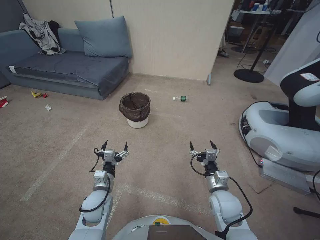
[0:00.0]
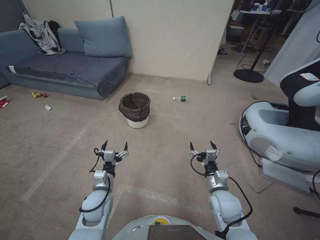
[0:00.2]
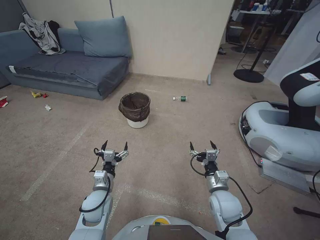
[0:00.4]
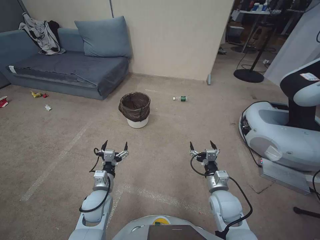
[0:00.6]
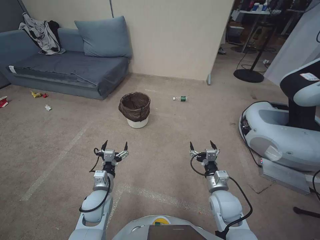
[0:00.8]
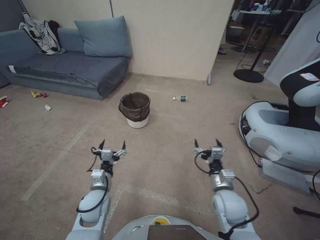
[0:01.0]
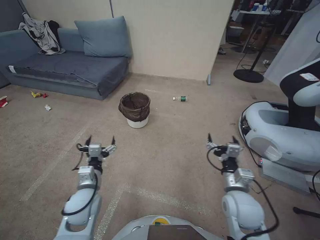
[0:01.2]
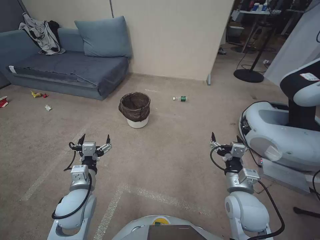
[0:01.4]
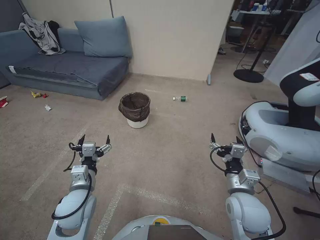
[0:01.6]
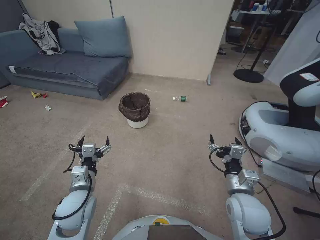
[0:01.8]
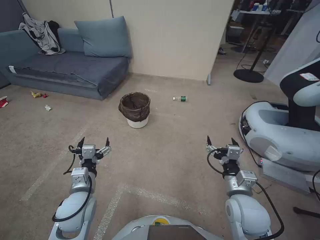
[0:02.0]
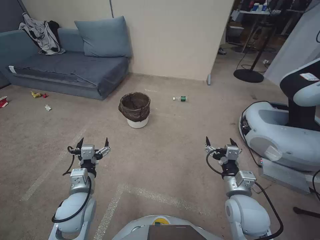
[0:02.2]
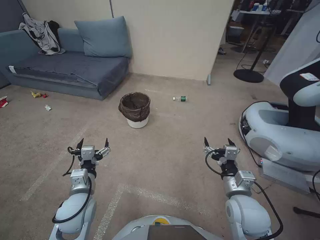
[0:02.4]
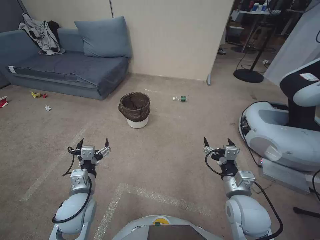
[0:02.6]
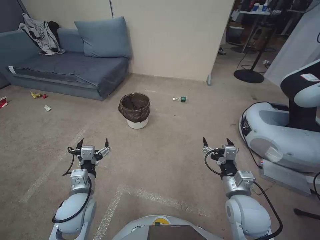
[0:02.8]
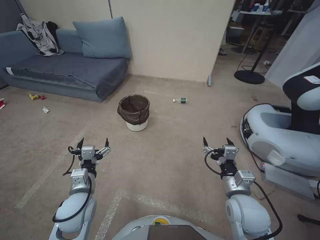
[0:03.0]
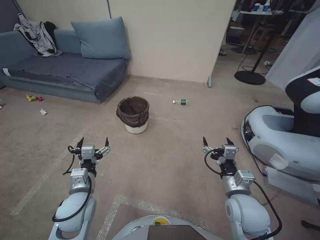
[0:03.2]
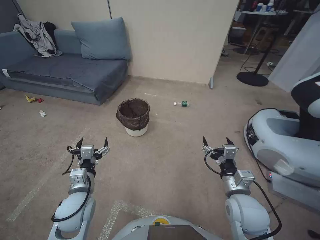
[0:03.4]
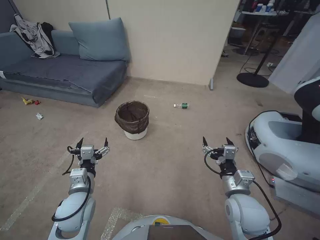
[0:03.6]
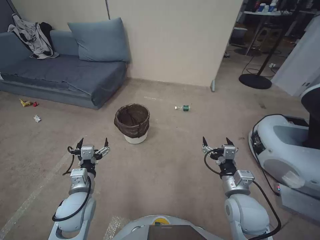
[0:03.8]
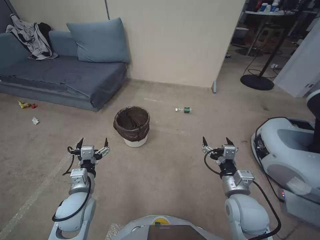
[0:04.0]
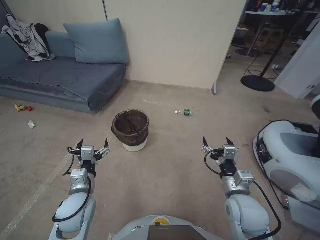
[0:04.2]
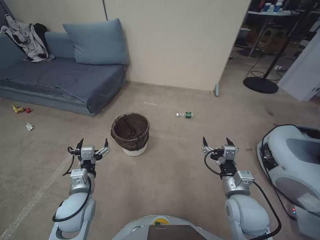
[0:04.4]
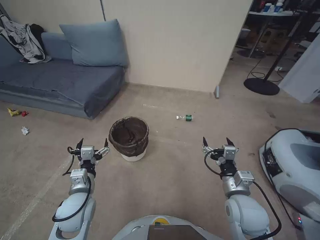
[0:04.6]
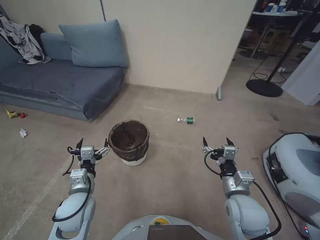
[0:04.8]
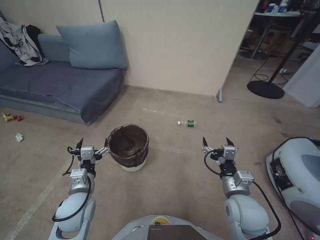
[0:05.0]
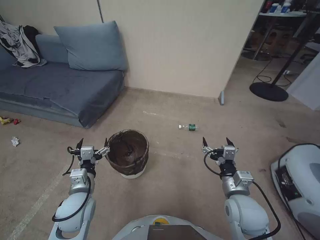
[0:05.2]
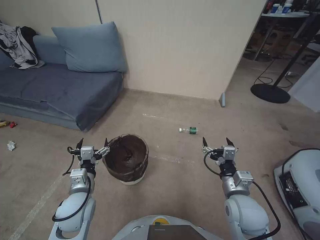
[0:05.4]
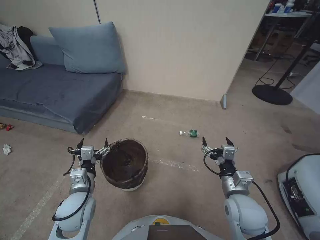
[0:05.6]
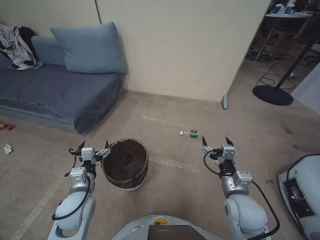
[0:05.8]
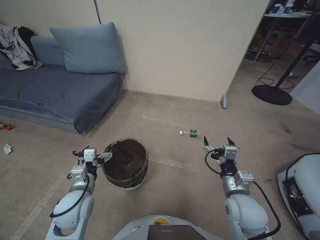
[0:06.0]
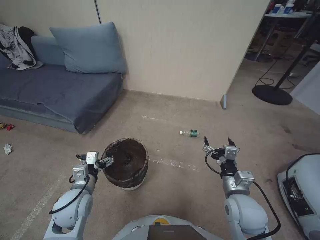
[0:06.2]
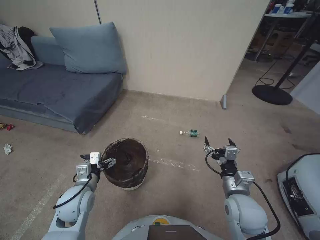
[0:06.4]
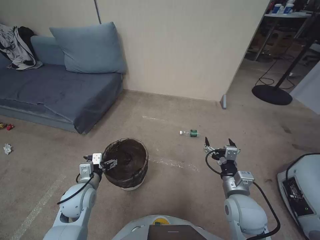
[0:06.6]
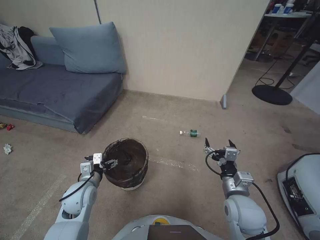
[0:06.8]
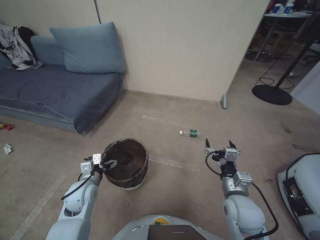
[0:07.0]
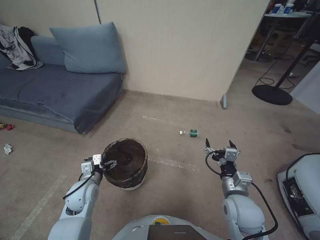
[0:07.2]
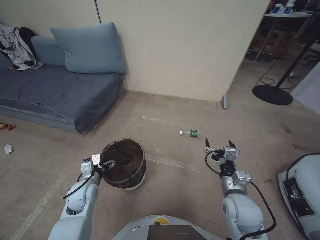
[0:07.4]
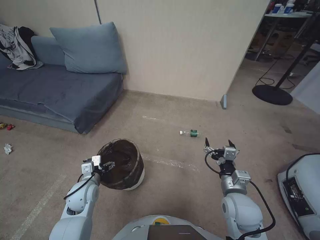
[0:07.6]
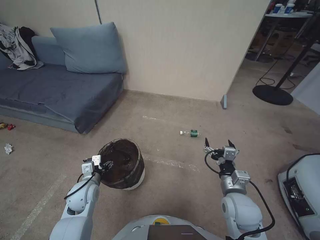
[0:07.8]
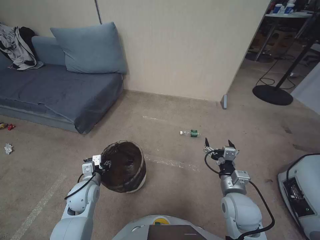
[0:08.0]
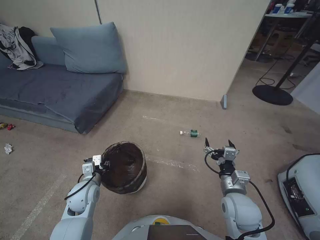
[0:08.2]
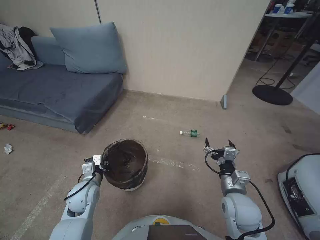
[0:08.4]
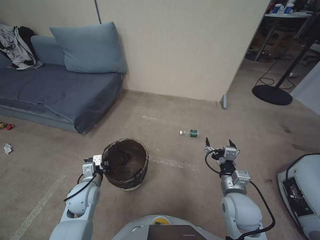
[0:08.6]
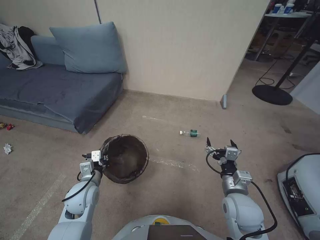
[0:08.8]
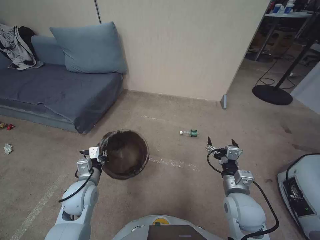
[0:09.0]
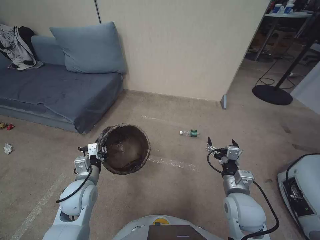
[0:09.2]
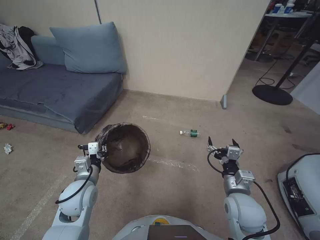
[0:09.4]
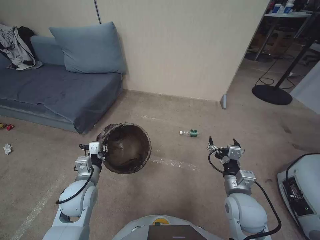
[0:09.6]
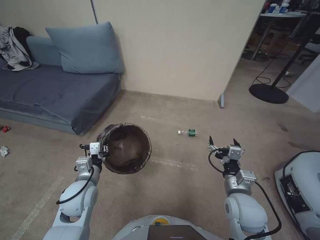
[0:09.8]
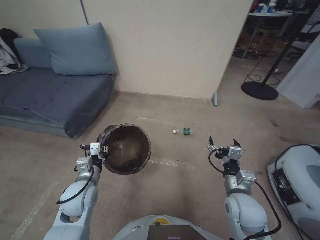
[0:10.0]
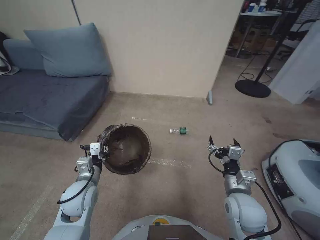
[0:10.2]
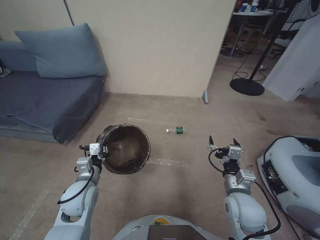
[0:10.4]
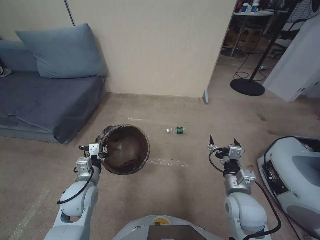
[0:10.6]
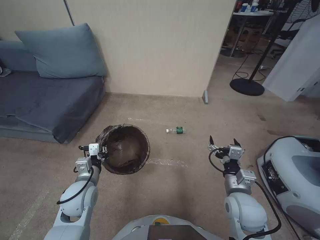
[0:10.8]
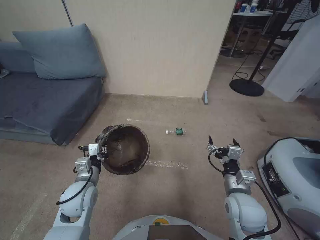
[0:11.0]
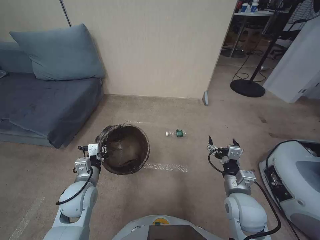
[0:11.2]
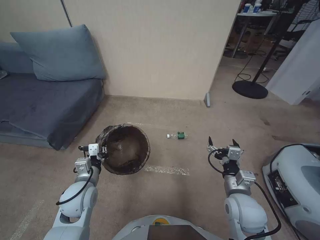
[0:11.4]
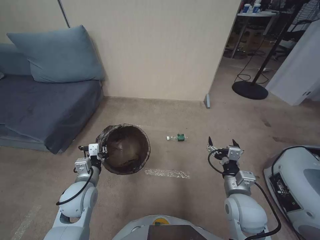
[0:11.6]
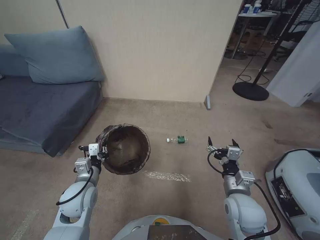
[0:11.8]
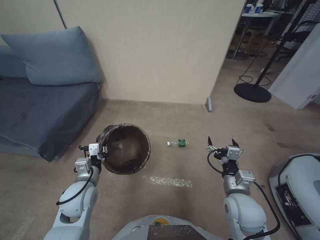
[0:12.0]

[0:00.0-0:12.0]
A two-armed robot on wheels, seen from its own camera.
Task of the whole recording: Pick up the trash bin, then pick up the garbage from the floor and place it into the trash bin.
0:01.6 to 0:03.0: The grippers move only a little.
0:06.0 to 0:07.6: The left gripper goes some 5 cm downward.
0:07.6 to 0:09.0: The left gripper shifts by some 5 cm, and closes up.
0:10.4 to 0:12.0: Both grippers stay about where they are.

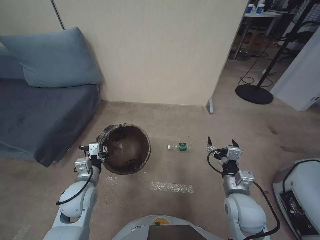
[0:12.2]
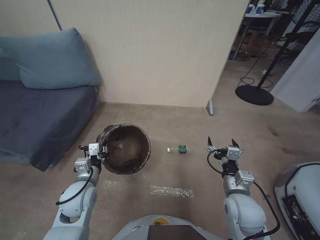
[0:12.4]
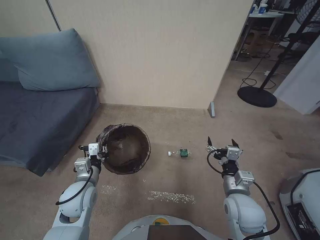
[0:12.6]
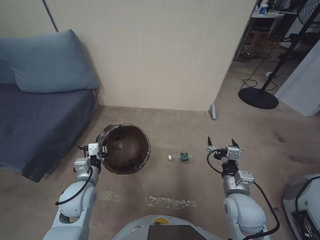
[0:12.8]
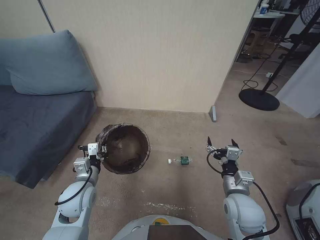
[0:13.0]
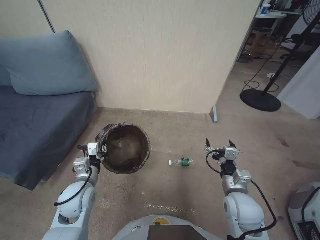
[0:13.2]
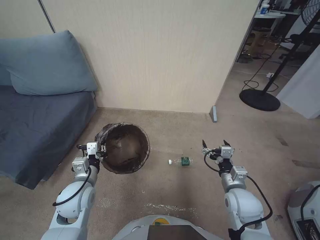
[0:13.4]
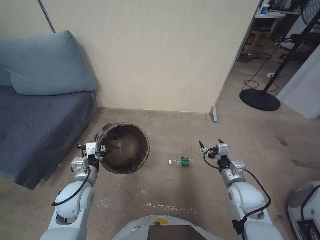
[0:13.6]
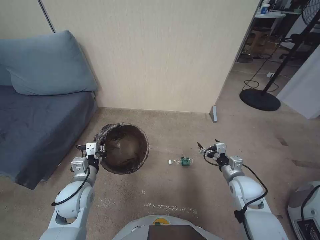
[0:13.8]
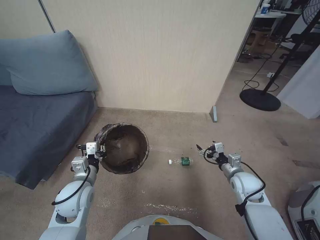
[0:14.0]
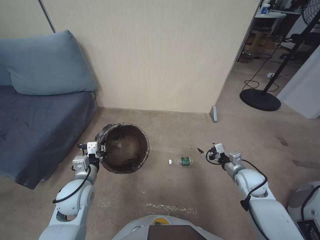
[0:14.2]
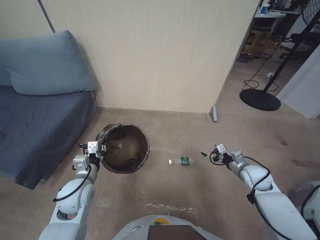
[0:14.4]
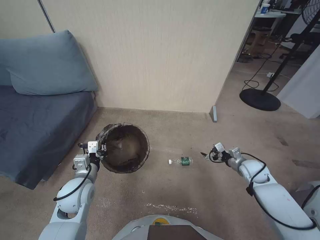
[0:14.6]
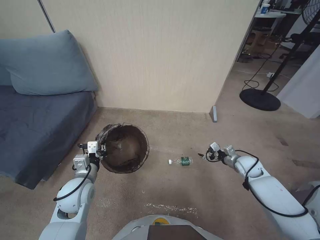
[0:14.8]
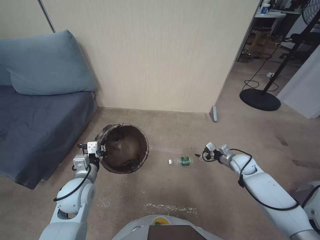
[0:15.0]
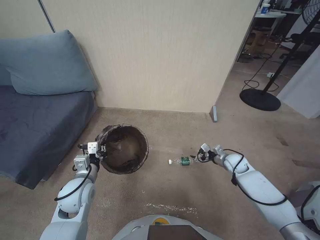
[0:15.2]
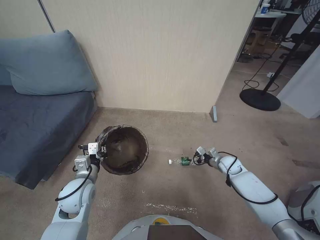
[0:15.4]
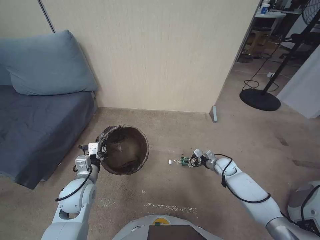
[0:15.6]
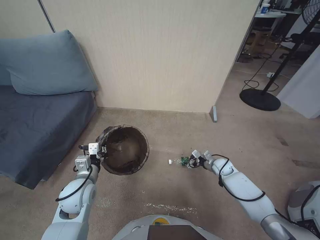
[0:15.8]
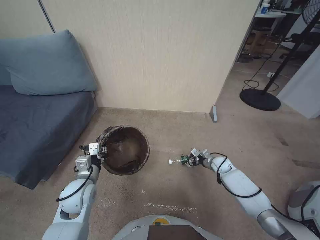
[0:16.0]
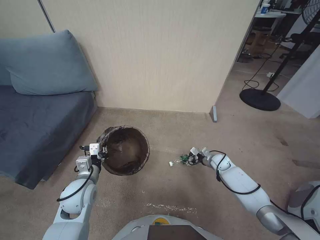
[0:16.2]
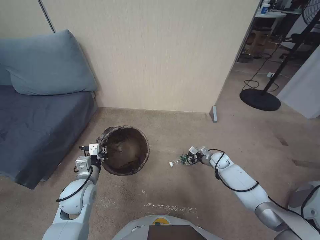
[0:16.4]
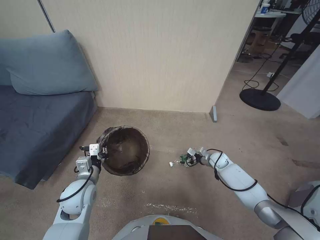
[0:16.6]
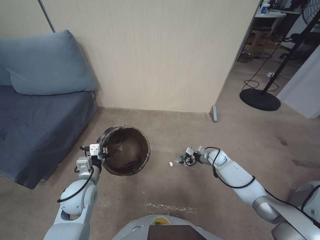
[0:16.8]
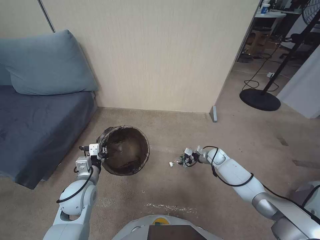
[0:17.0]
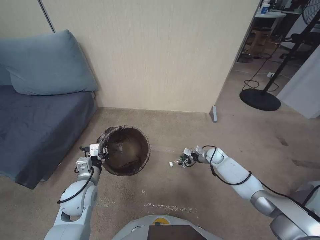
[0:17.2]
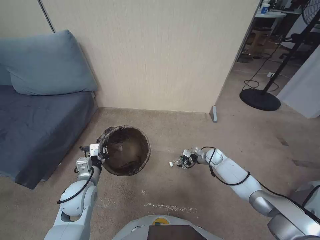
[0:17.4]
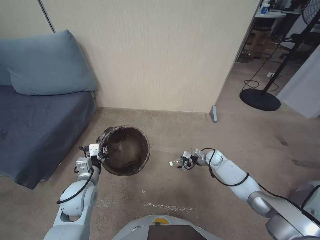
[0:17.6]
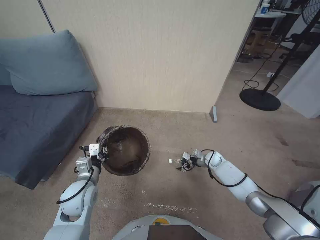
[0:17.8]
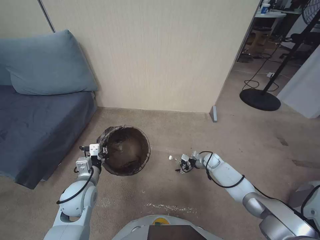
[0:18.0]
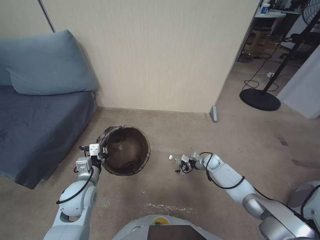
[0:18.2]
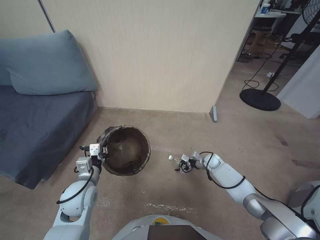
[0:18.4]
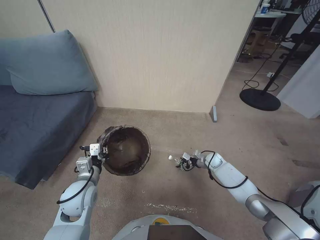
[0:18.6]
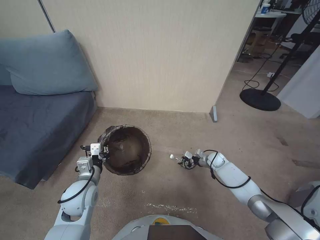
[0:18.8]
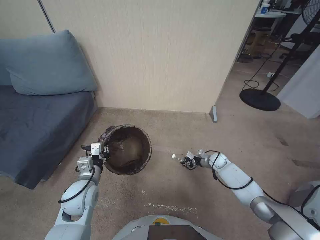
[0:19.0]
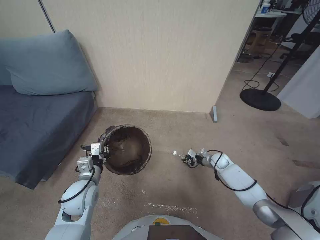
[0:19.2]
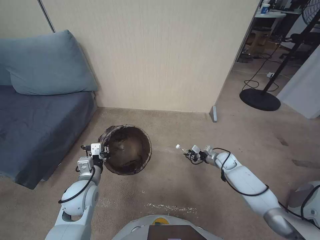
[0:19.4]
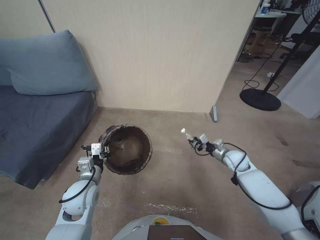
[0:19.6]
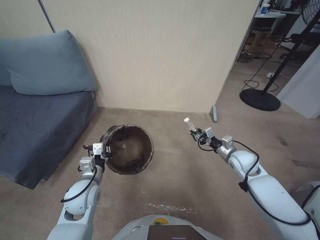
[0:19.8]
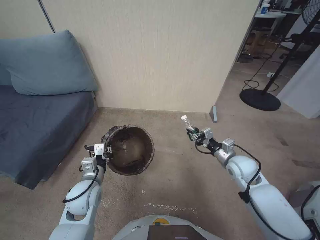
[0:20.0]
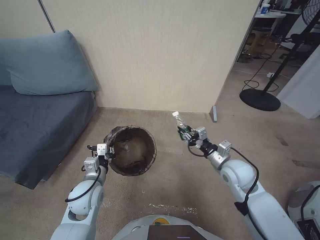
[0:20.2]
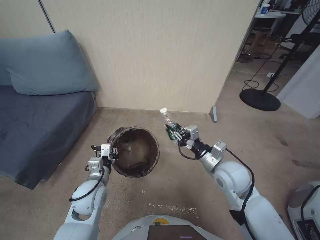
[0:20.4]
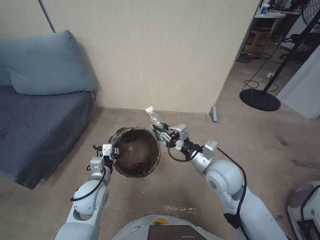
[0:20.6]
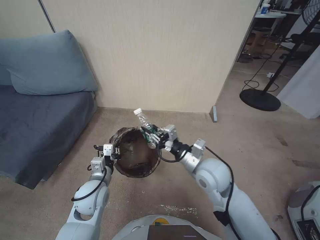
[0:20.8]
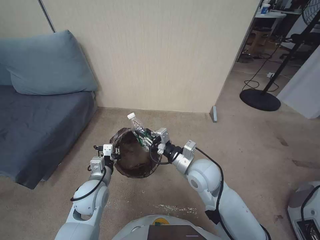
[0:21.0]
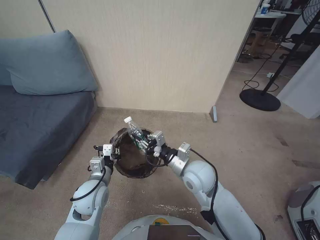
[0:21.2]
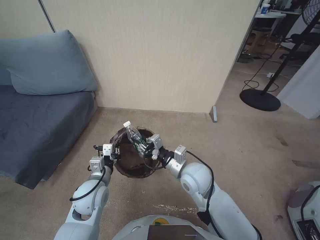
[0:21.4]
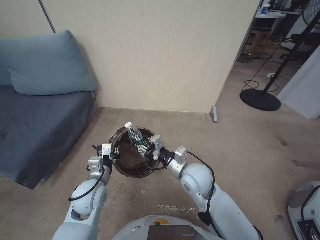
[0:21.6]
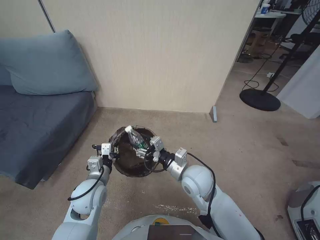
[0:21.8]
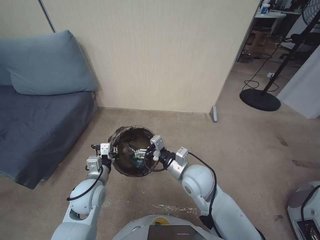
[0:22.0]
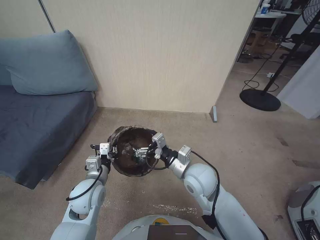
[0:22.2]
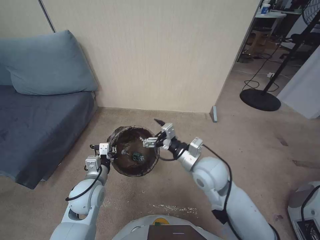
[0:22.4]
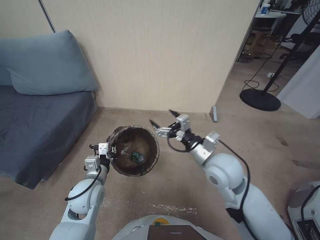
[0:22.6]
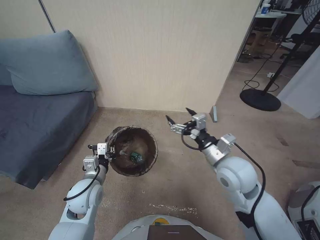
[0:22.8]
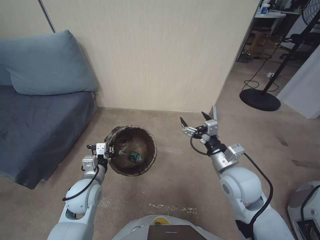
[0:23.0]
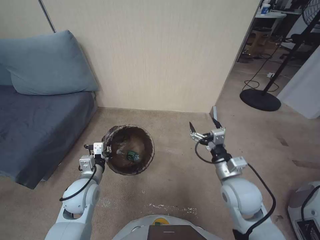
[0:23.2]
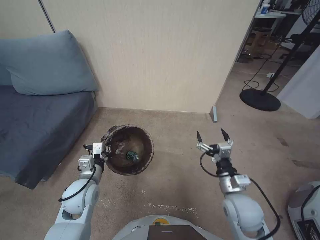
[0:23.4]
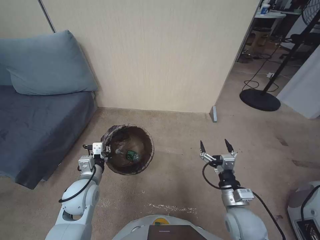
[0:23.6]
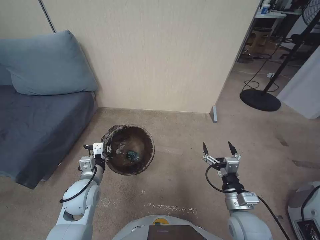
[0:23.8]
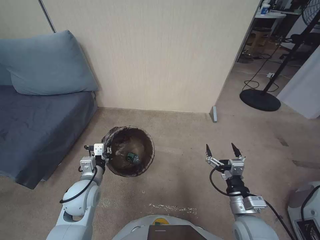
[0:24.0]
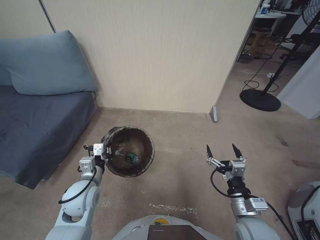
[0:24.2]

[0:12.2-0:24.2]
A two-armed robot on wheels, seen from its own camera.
Task of the whole recording: Pick up the trash bin, then pick up the garbage from the floor and place it into the trash bin.
0:12.2 to 0:13.8: The right gripper is displaced forward and to the right by some 10 cm.
0:13.8 to 0:15.2: The right gripper is displaced forward, to the right and downward by approximately 20 cm.
0:15.2 to 0:16.6: The right gripper goes about 5 cm downward.
0:16.6 to 0:18.2: The grippers make only small movements.
0:18.2 to 0:19.8: The right gripper goes about 20 cm upward and backward, and closes.
0:19.8 to 0:21.2: The right gripper travels to the left, backward and upward by about 25 cm.
0:21.2 to 0:22.6: The right gripper opens.
0:22.6 to 0:24.2: The right gripper travels backward, downward and to the right by about 20 cm.
